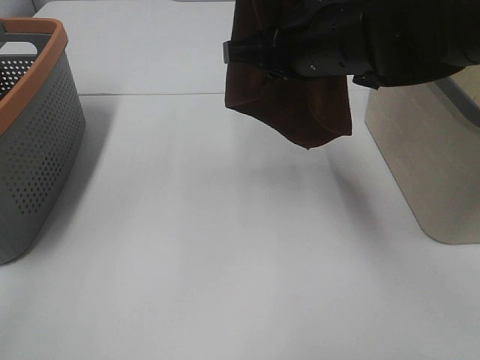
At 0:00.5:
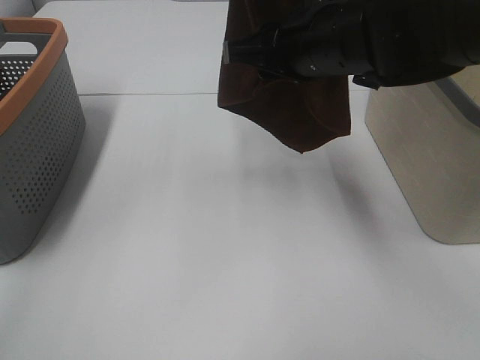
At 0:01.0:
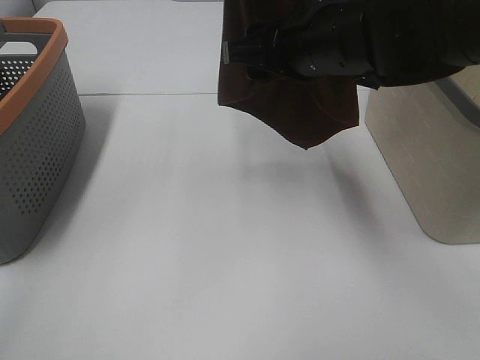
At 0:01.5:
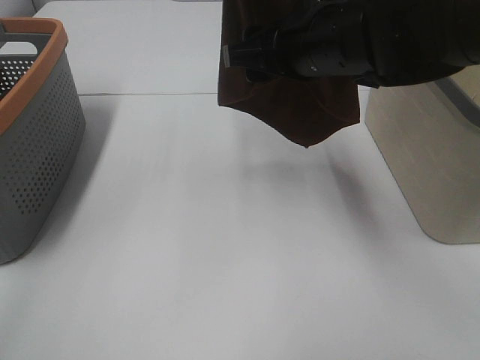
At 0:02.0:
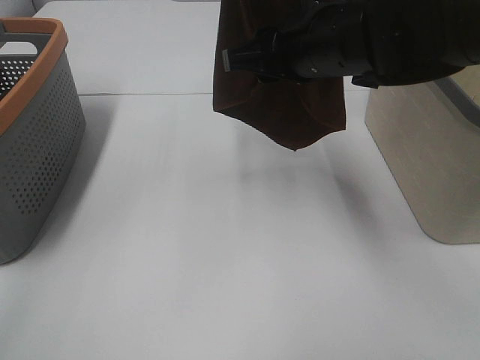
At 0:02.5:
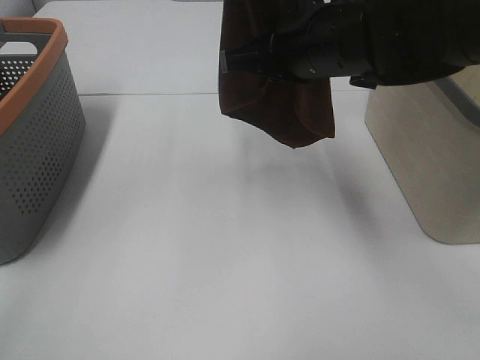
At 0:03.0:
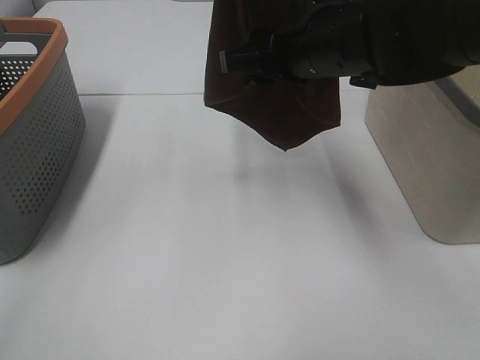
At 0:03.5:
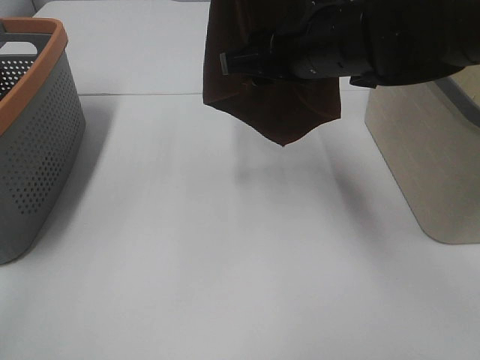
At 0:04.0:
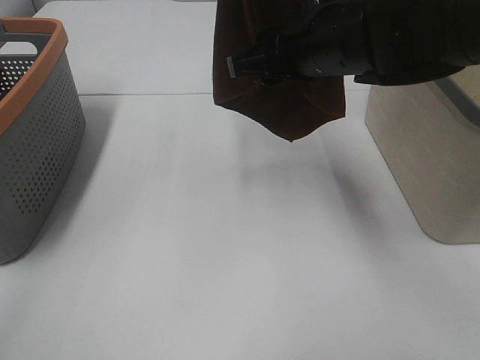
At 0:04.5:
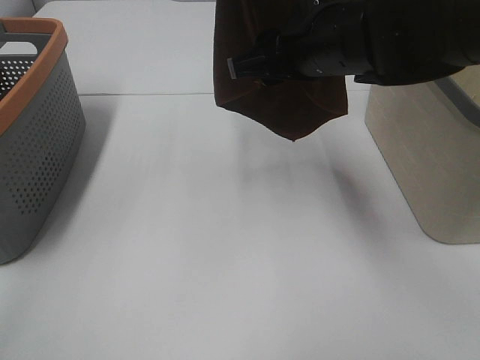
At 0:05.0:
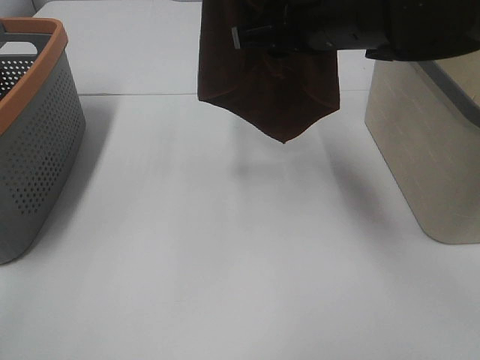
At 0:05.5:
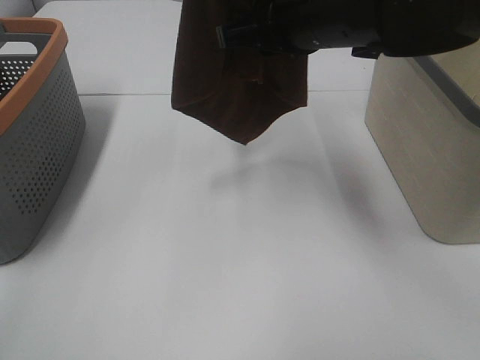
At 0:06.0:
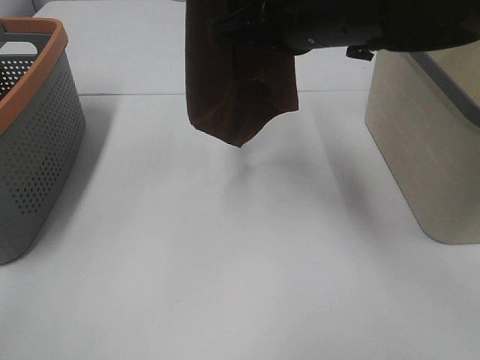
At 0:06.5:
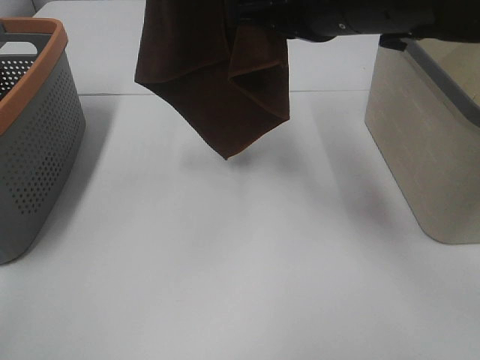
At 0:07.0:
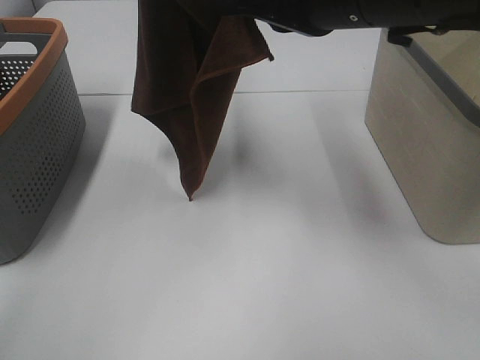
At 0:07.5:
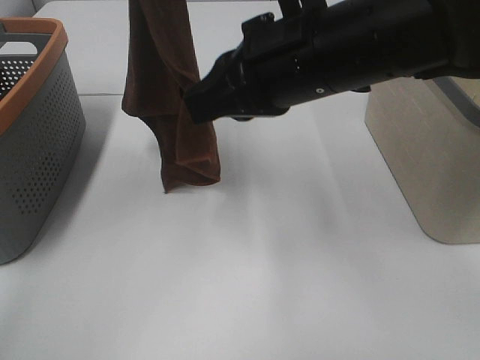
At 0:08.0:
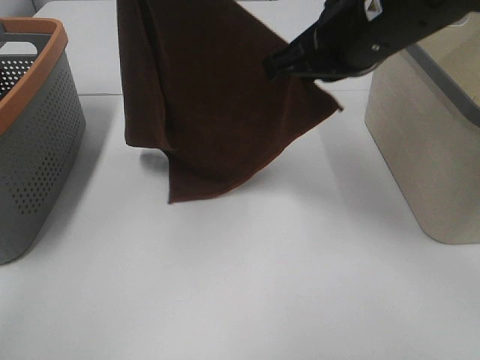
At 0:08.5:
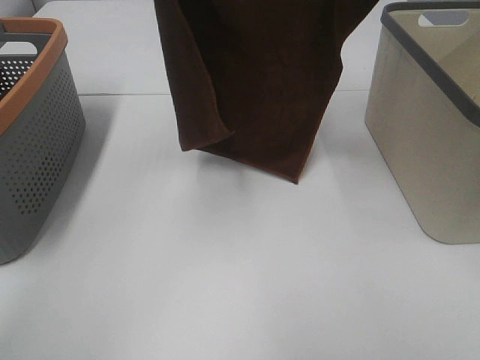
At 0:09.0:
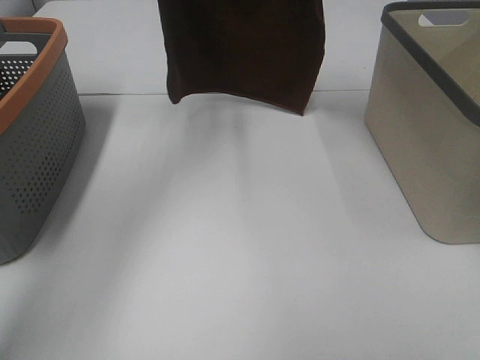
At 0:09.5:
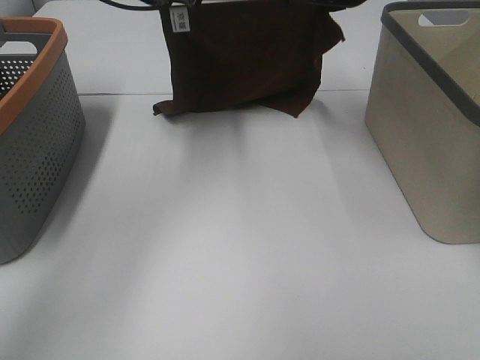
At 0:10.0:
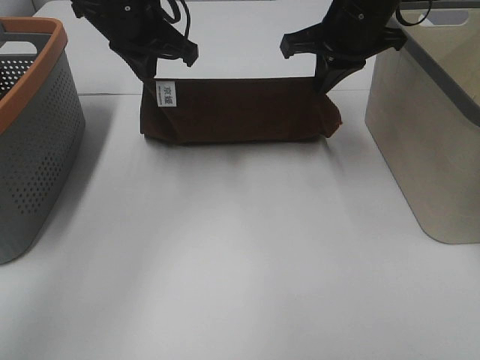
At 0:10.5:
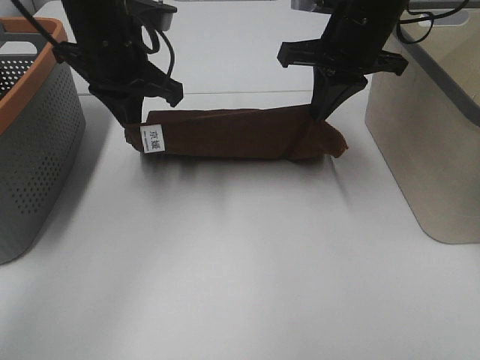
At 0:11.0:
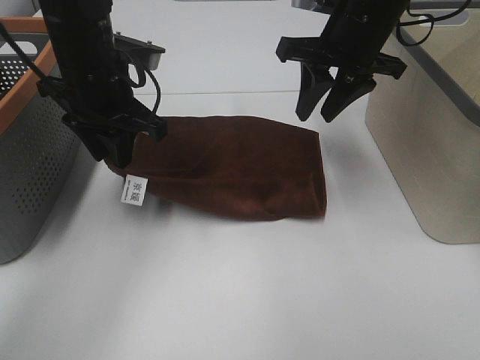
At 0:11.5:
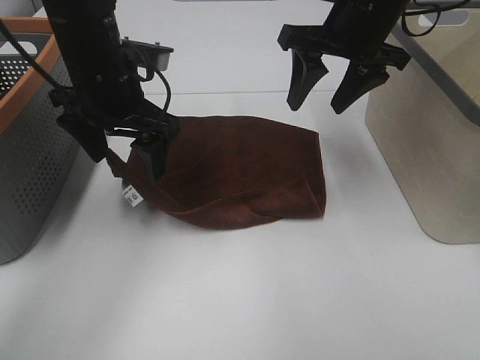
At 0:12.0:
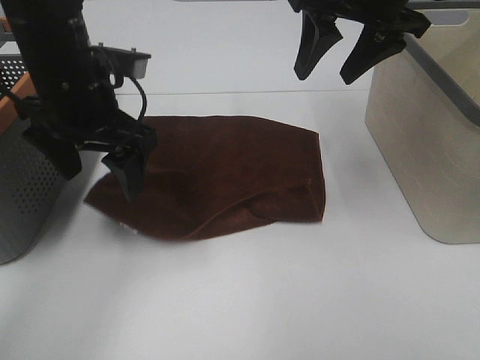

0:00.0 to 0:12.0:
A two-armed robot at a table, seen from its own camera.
Task of the whole recording: Remove the towel and place it.
Step, 0:00.0 to 0:03.5: Right hand: grab a corner of the brown towel and straighten it.
Step, 0:04.0 to 0:05.5: Right hand: spread the brown towel flat on the table.
Step, 0:04.0 to 0:06.0: Left hand: spread the brown towel flat on the table.
0:00.0 to 0:02.0: Both grippers stay put.
0:02.0 to 0:04.0: The right gripper closes, then opens again.
0:04.0 to 0:06.0: The right gripper closes.
0:06.0 to 0:08.0: The left gripper goes some 5 cm downward.
0:08.0 to 0:10.0: The right gripper is displaced forward by about 15 cm, while the left gripper shifts roughly 20 cm downward and forward.
0:10.0 to 0:12.0: The left gripper heads backward, covering approximately 10 cm, and opens. The right gripper heads upward, covering approximately 5 cm, and opens.

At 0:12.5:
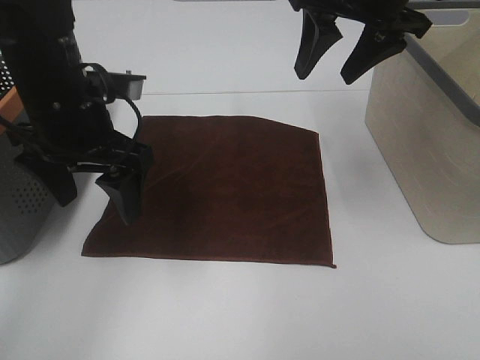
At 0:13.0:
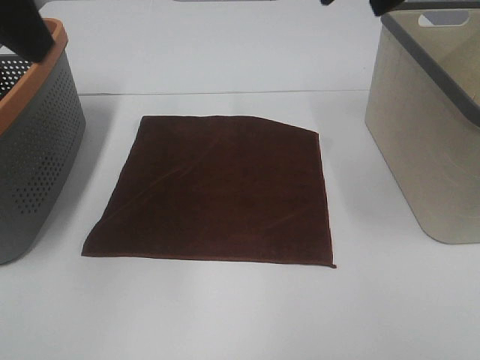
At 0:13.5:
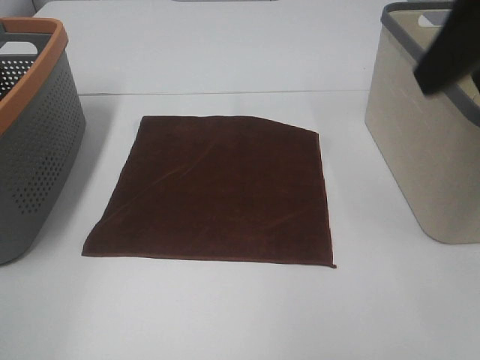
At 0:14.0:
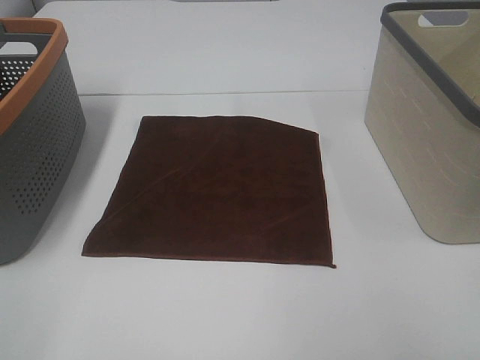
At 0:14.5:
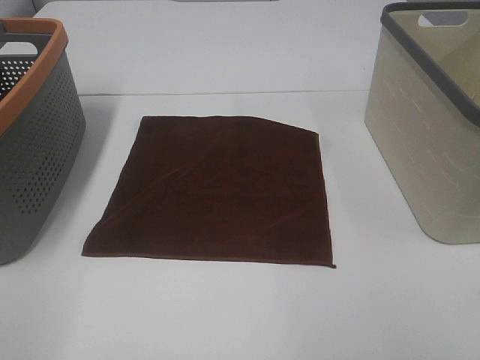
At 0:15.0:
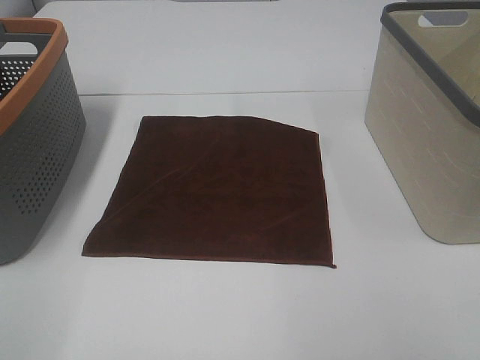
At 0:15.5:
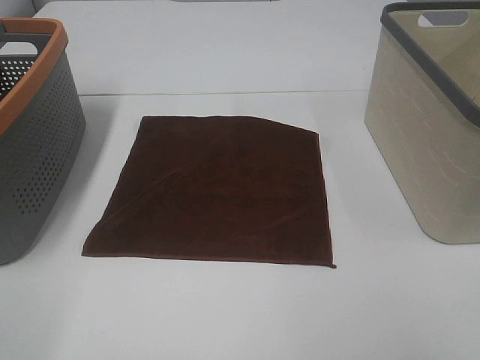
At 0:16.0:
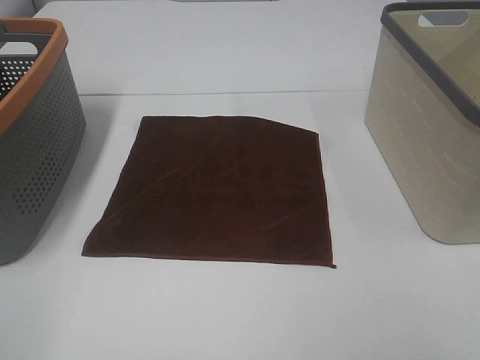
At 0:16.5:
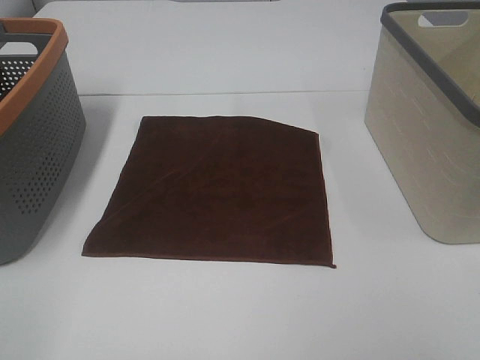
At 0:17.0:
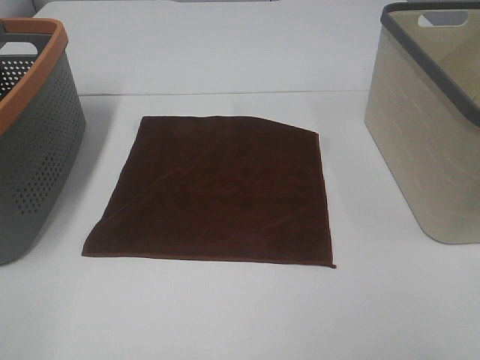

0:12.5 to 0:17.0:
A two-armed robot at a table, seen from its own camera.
Task of the whole recording: Remove the towel and place it.
0:12.5 to 0:14.5: The right gripper goes about 35 cm backward. The left gripper heads backward and to the left, covering approximately 35 cm.

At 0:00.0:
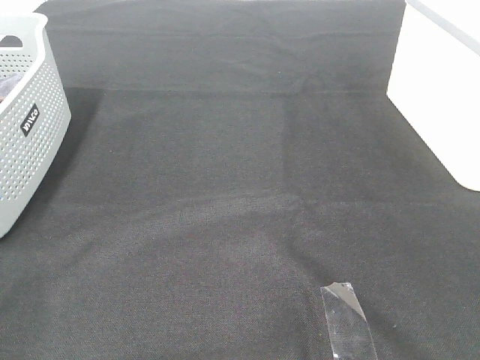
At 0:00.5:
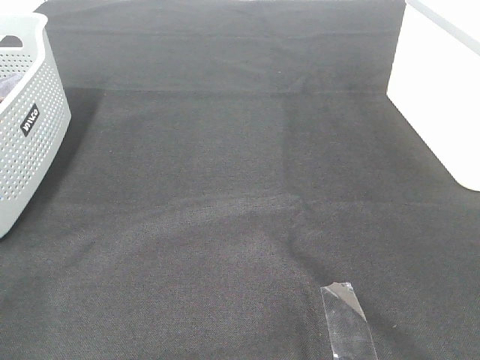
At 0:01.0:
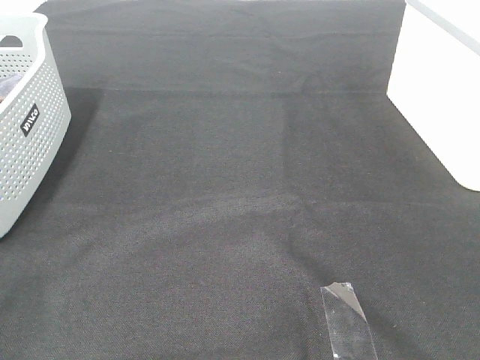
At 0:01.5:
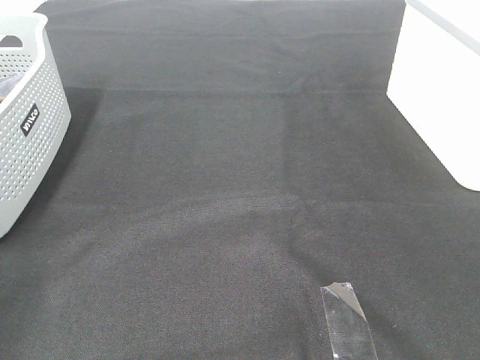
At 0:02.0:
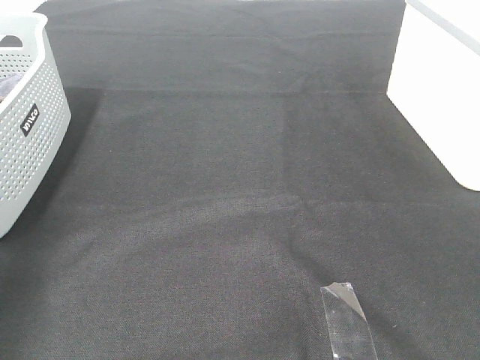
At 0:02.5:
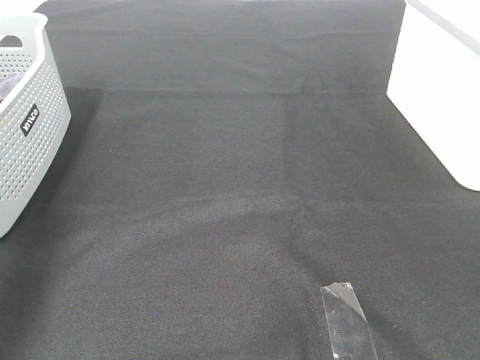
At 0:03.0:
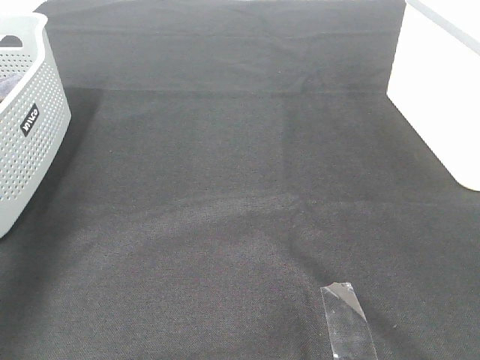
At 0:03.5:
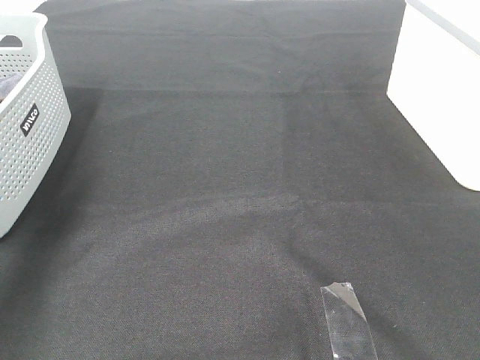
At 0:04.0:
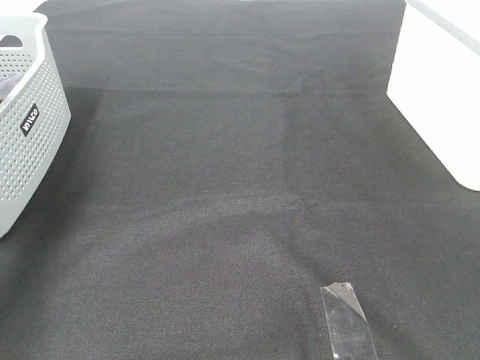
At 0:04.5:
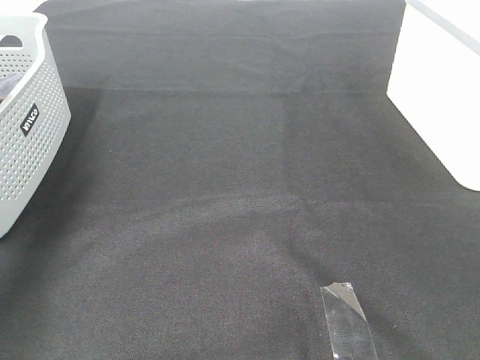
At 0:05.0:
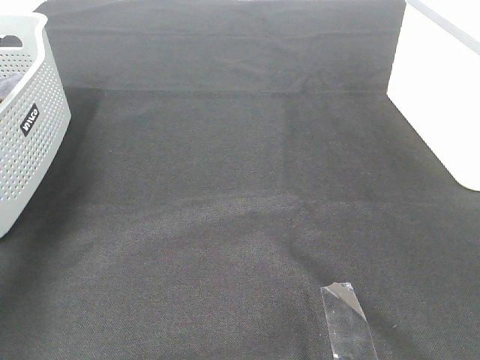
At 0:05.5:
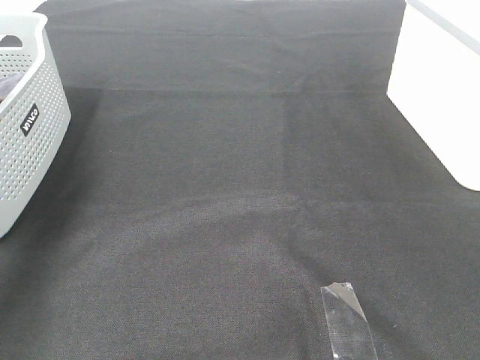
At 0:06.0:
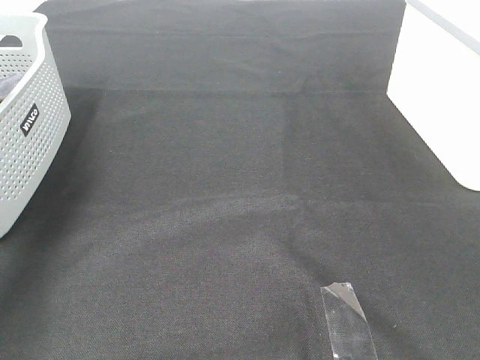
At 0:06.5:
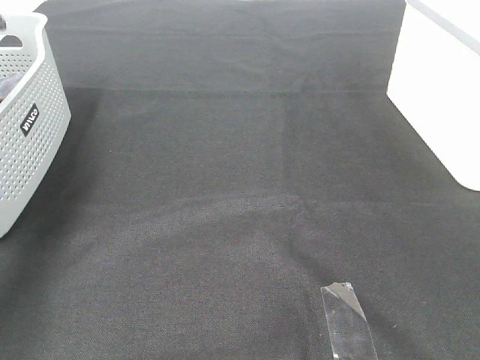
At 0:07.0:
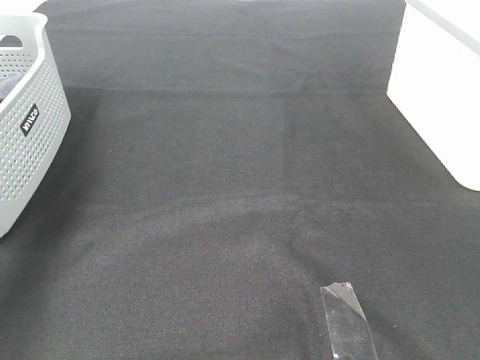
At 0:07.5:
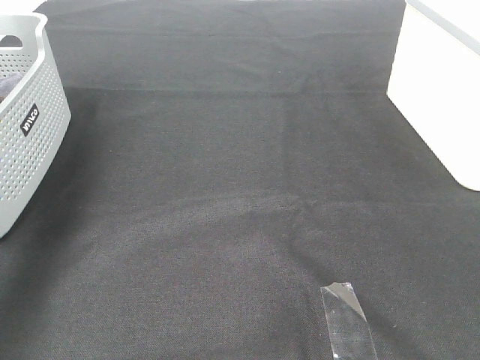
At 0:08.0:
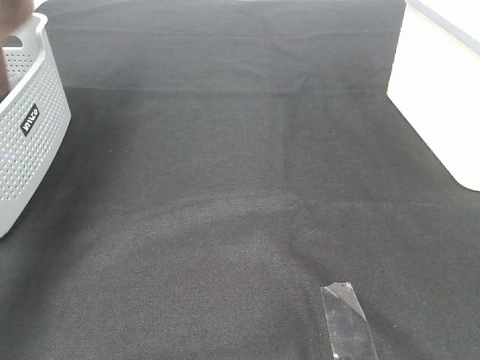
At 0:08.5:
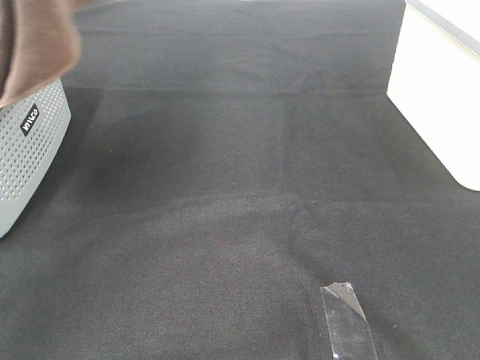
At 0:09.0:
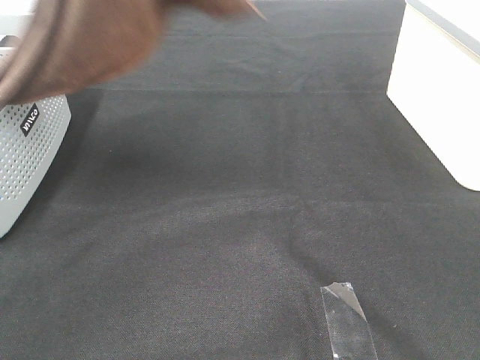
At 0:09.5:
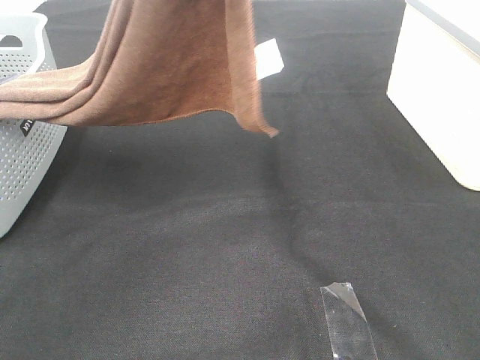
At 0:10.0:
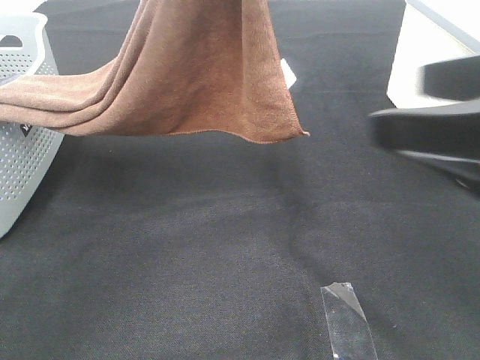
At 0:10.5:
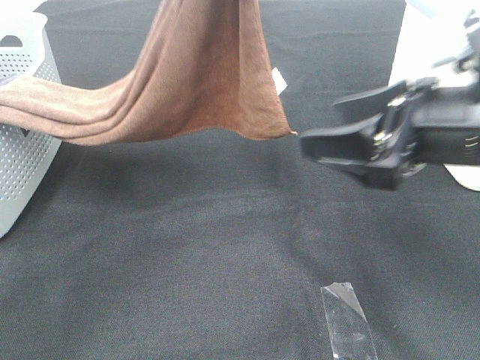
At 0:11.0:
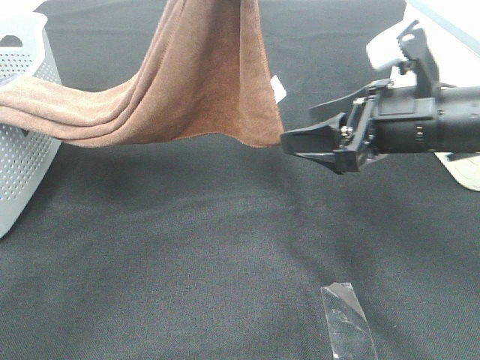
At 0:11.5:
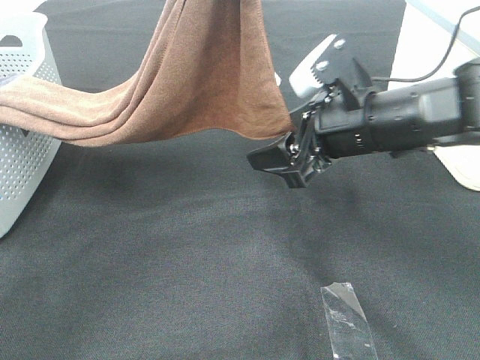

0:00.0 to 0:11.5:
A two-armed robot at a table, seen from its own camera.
Task of the whole recording: Remove the towel and place it.
0:00.0 to 0:02.0: The left gripper goes some 20 cm forward and upward.
0:02.0 to 0:04.0: The left gripper is displaced forward and downward by approximately 30 cm.
0:07.5 to 0:09.5: The left gripper heads to the right and backward, covering some 20 cm; the right gripper heads forward, covering roughly 5 cm.
0:09.5 to 0:11.5: The left gripper shifts by approximately 5 cm. The right gripper is displaced forward, downward and to the left by some 30 cm.
